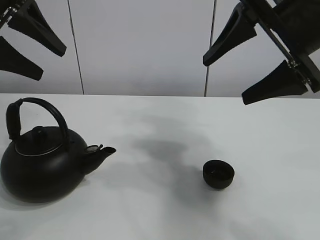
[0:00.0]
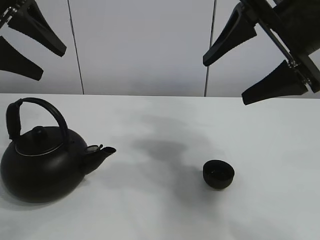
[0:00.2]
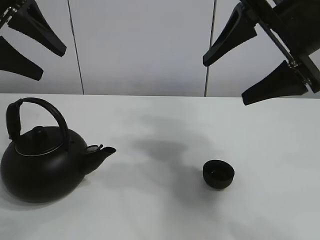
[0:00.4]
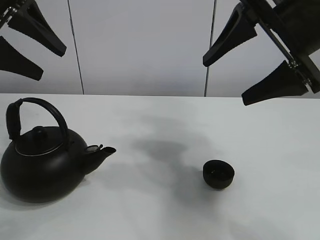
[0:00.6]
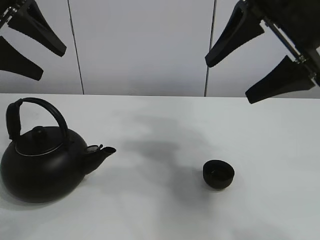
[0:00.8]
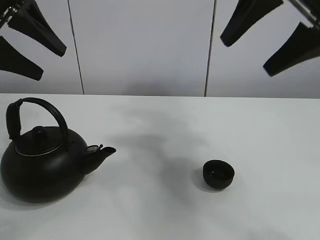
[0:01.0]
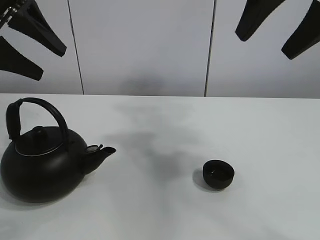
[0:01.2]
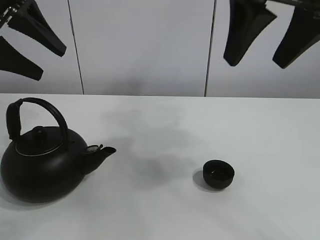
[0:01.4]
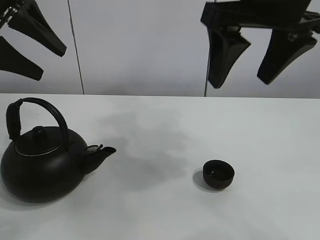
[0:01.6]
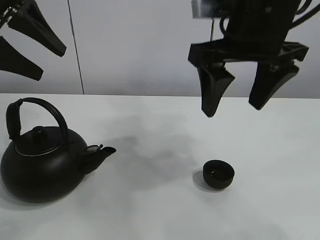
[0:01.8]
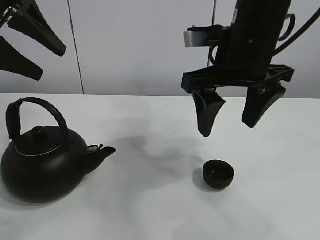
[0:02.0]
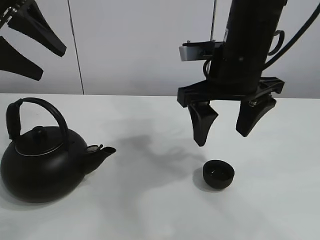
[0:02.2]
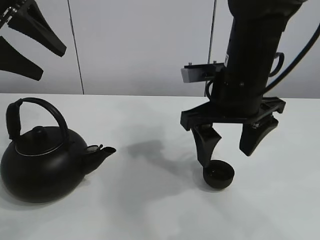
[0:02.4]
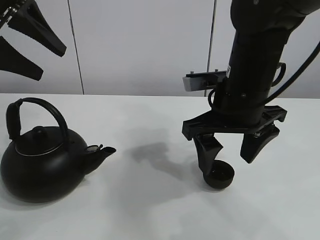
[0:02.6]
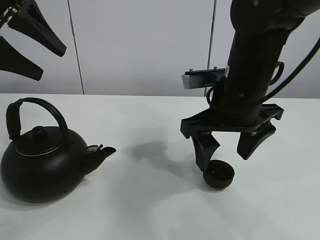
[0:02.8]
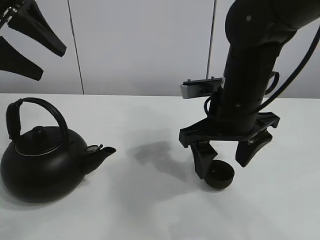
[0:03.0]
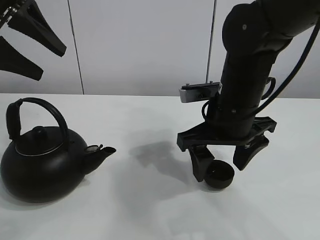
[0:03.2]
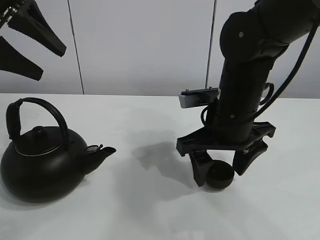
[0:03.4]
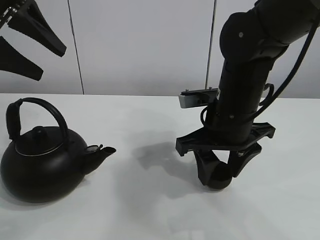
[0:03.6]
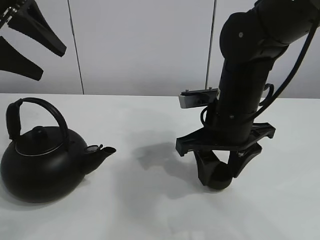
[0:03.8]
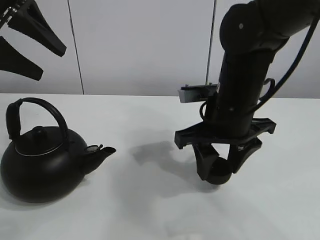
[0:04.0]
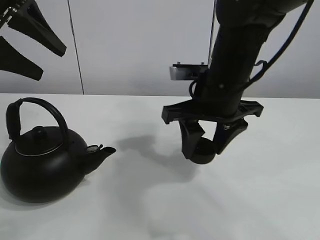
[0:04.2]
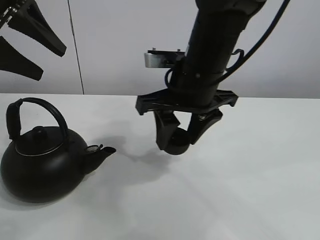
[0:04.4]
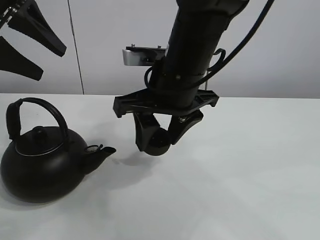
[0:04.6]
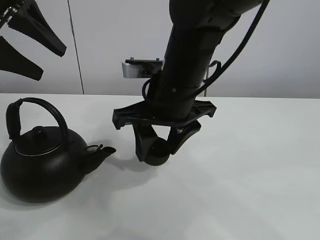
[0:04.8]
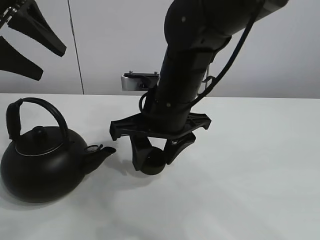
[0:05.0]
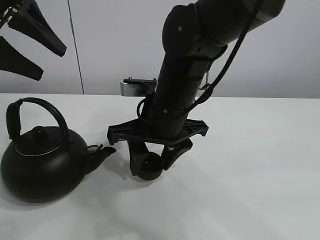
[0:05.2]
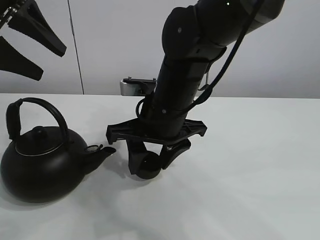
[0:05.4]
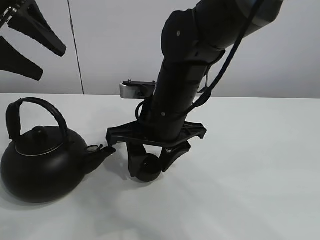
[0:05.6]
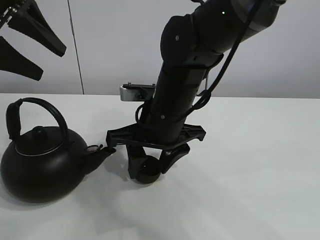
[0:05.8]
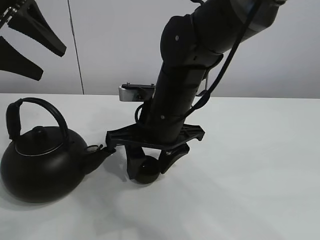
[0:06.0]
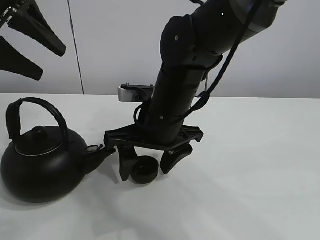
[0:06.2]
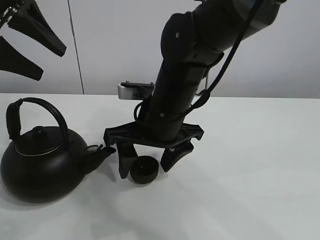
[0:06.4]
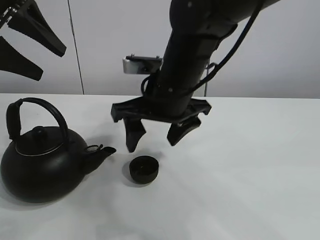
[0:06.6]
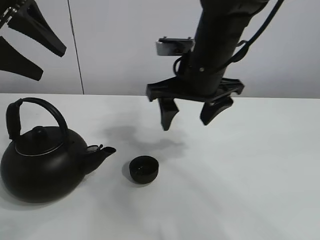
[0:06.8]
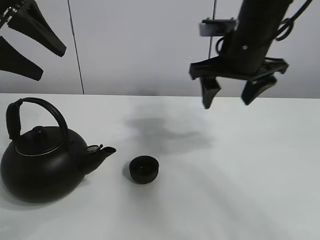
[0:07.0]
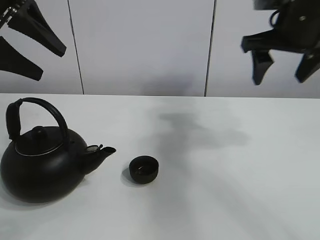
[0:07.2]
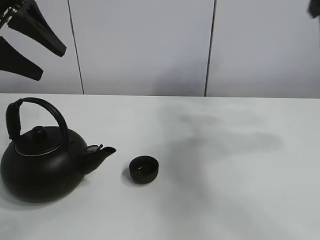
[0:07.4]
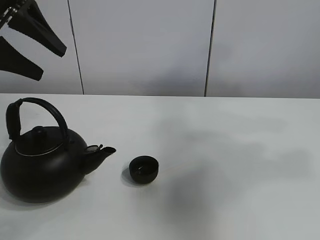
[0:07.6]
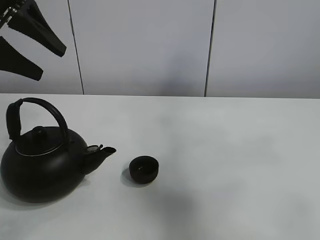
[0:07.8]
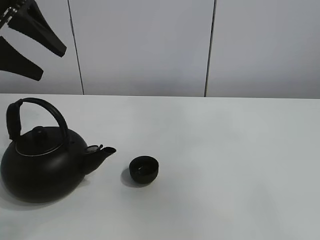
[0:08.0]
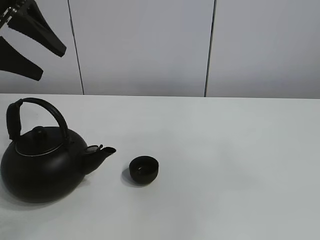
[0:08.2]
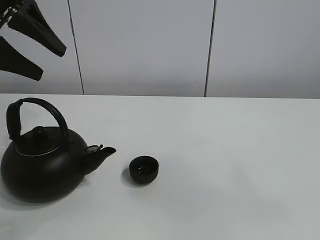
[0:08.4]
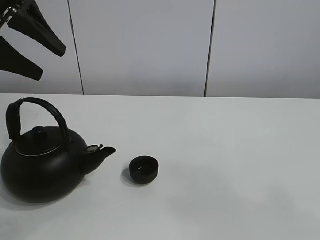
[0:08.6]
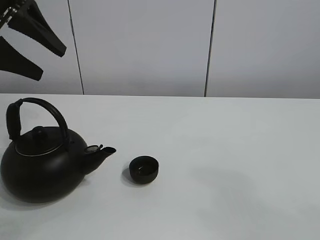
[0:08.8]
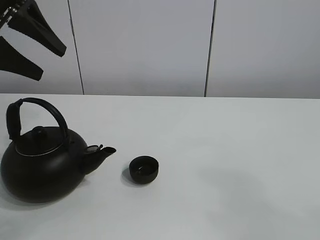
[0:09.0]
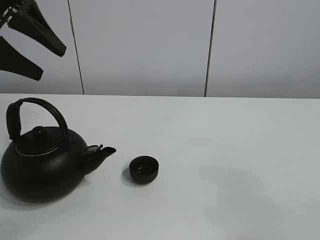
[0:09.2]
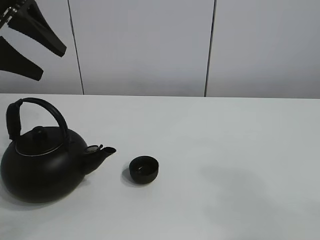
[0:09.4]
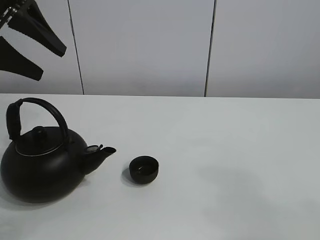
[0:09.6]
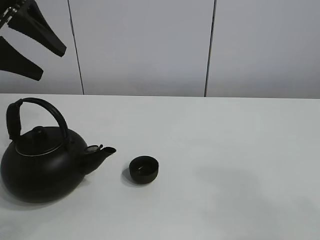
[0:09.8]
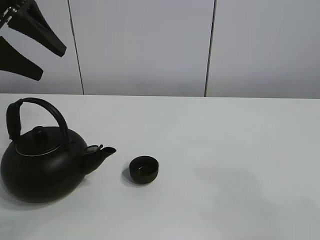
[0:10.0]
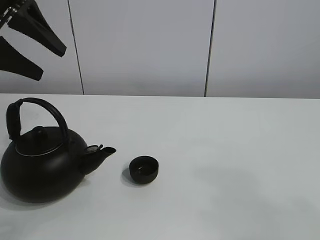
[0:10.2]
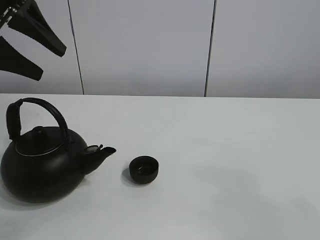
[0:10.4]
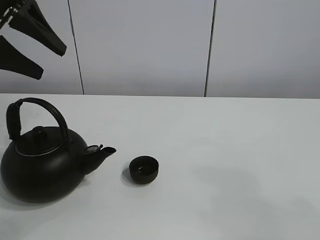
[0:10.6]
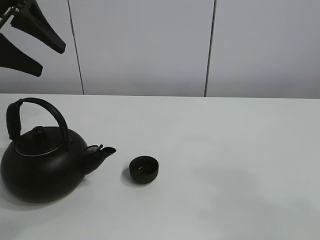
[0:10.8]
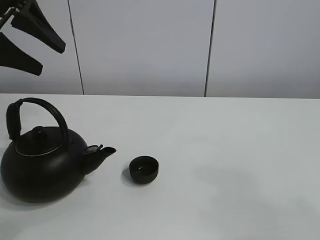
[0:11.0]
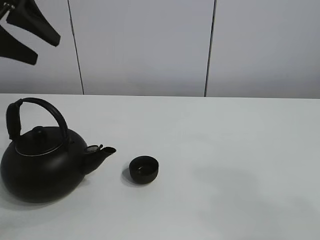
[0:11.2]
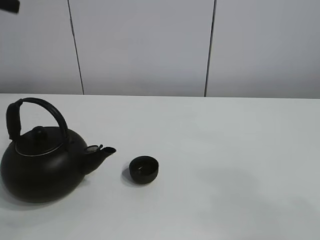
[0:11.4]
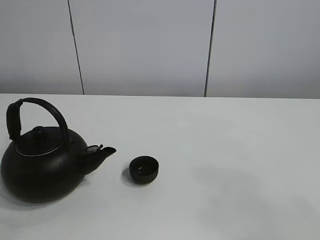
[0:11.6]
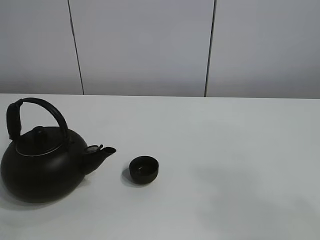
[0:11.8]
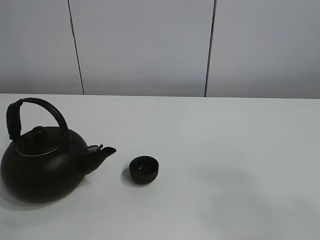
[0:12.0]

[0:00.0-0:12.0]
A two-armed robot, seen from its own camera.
Task of the whole recording: pour tea into the teacup.
Step, 0:00.0 to 0:03.8: Pick up the teacup with the right gripper.
Step, 0:04.0 to 0:06.0: Place the teacup in the center of view with the right gripper.
0:01.6 to 0:03.0: The right gripper is displaced downward by some 15 cm.
0:03.0 to 0:04.4: The right gripper shifts by roughly 5 cm, and closes its fingers.
0:04.4 to 0:06.0: The right gripper moves downward, approximately 5 cm.
0:06.0 to 0:07.6: The right gripper heads to the right and upward, covering approximately 40 cm, and opens up.
0:07.6 to 0:09.0: The right gripper goes approximately 30 cm backward and downward.
0:10.4 to 0:12.0: The left gripper heads upward and backward, covering some 20 cm.

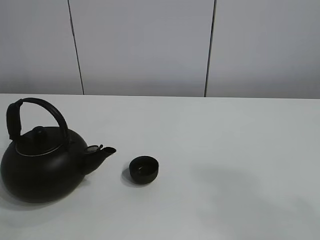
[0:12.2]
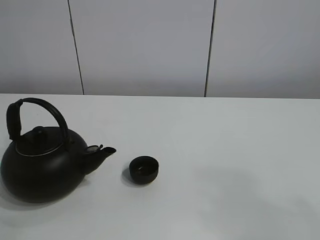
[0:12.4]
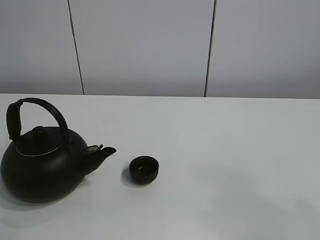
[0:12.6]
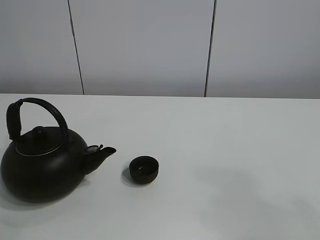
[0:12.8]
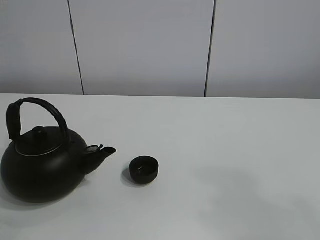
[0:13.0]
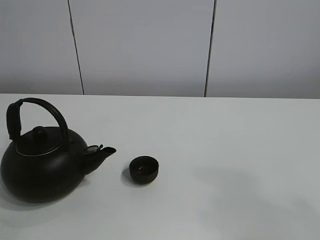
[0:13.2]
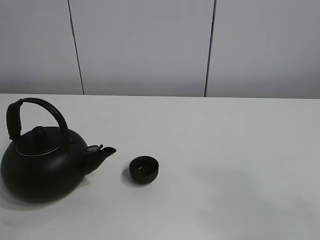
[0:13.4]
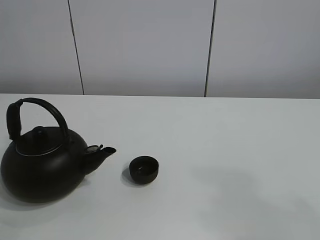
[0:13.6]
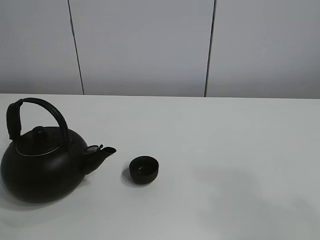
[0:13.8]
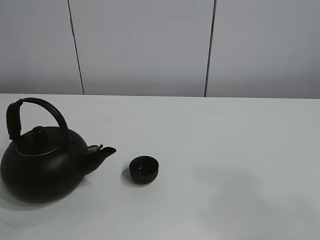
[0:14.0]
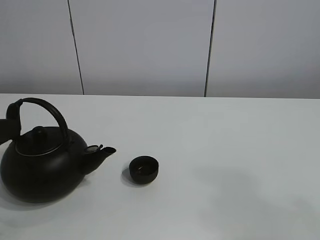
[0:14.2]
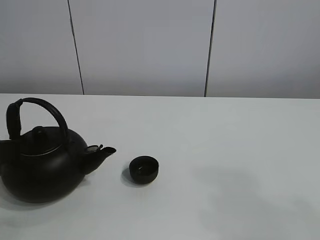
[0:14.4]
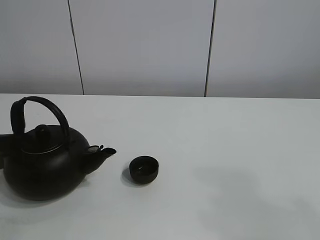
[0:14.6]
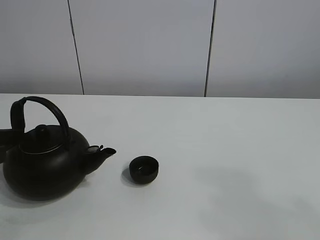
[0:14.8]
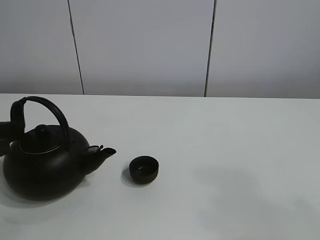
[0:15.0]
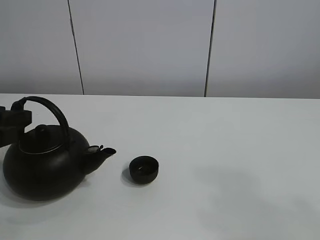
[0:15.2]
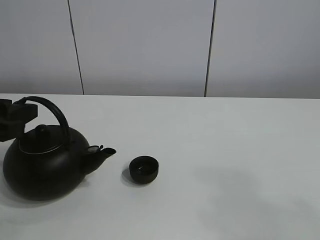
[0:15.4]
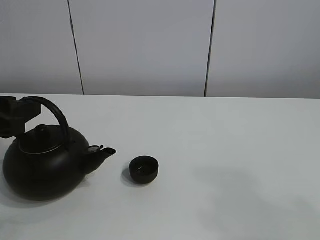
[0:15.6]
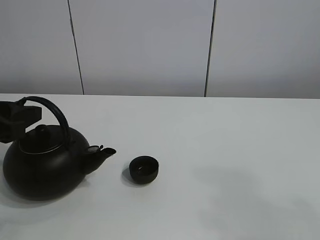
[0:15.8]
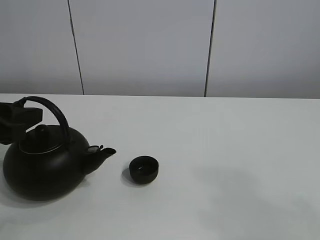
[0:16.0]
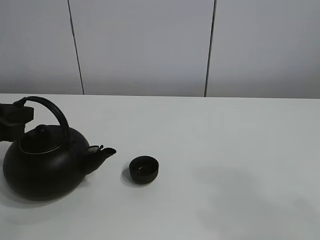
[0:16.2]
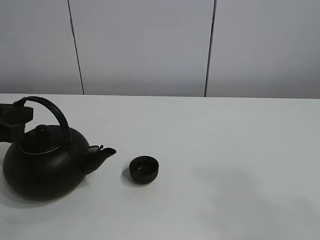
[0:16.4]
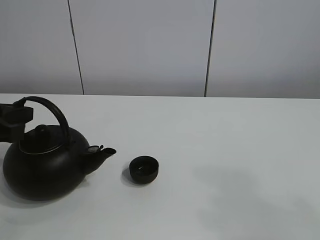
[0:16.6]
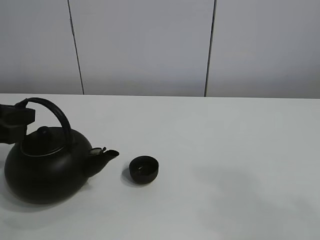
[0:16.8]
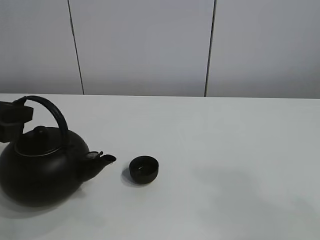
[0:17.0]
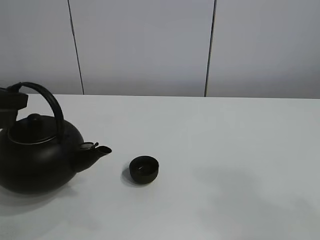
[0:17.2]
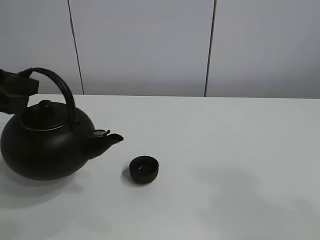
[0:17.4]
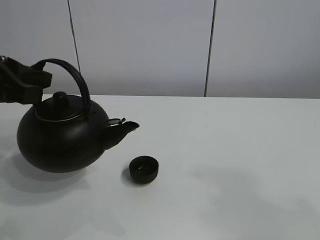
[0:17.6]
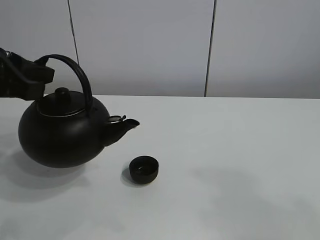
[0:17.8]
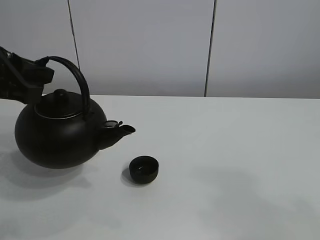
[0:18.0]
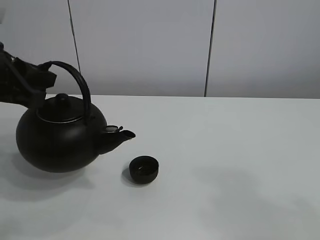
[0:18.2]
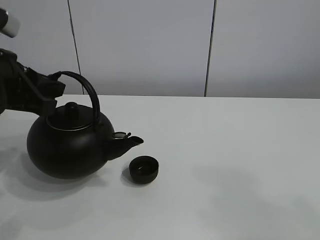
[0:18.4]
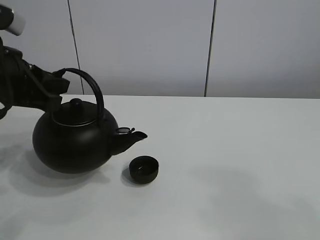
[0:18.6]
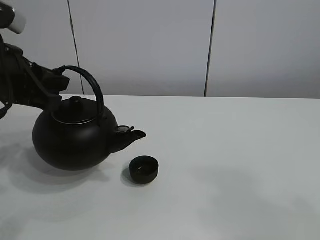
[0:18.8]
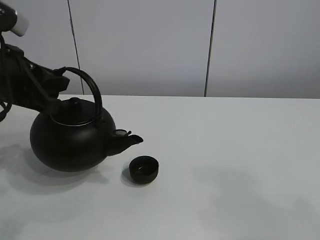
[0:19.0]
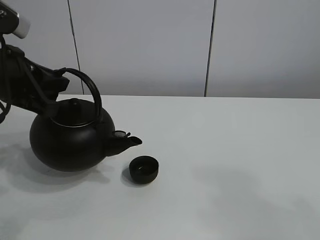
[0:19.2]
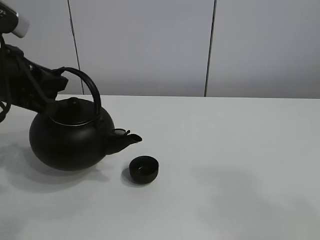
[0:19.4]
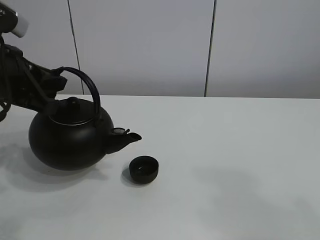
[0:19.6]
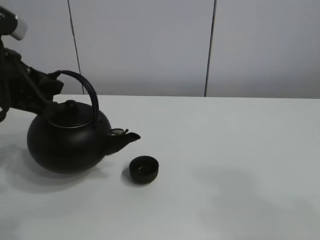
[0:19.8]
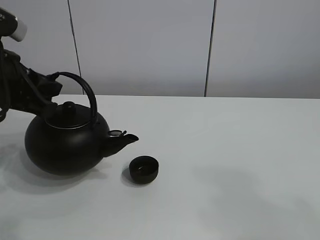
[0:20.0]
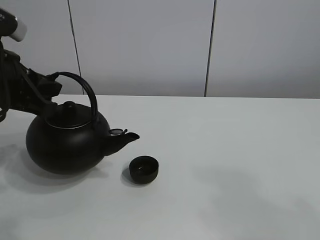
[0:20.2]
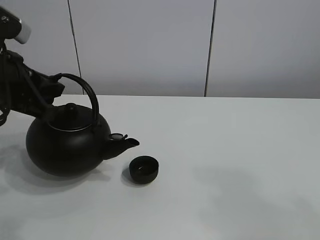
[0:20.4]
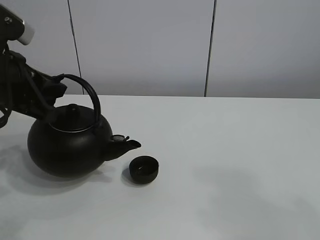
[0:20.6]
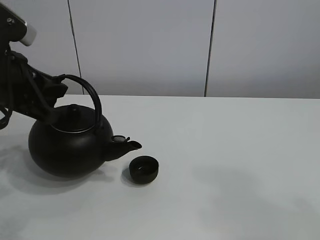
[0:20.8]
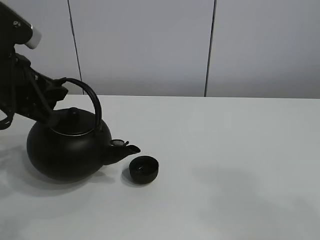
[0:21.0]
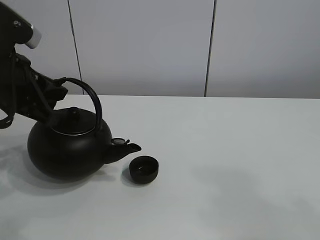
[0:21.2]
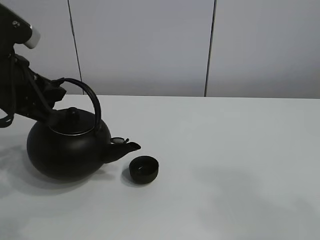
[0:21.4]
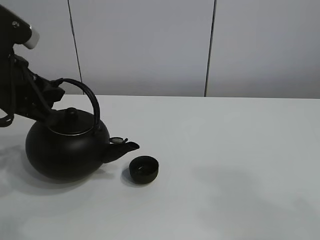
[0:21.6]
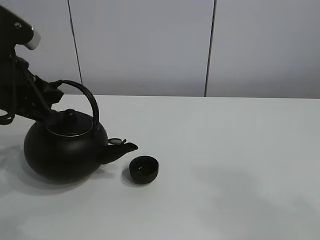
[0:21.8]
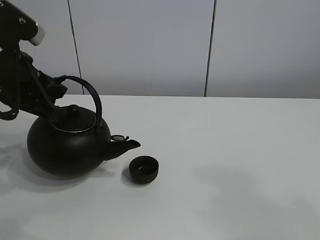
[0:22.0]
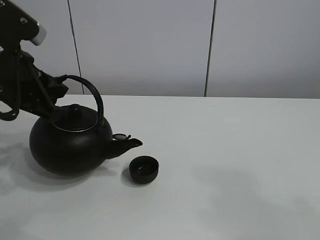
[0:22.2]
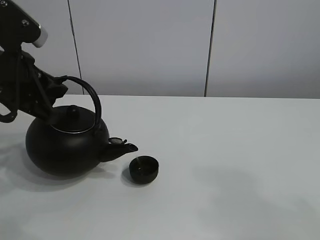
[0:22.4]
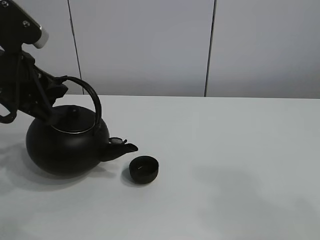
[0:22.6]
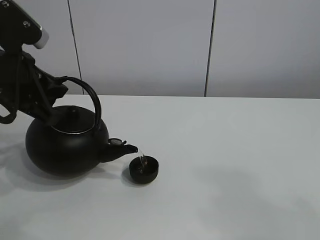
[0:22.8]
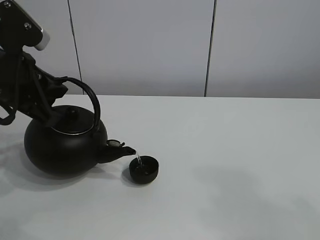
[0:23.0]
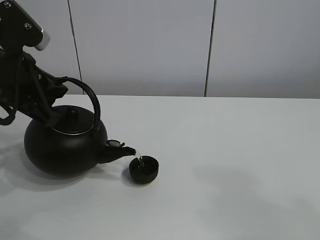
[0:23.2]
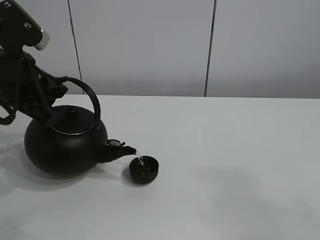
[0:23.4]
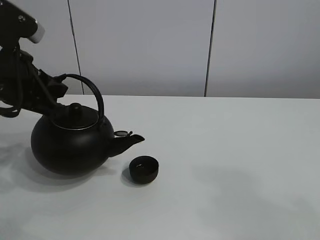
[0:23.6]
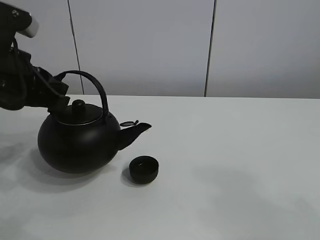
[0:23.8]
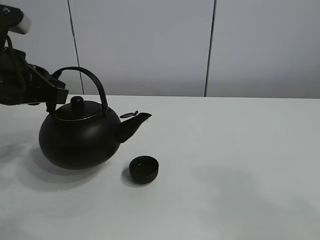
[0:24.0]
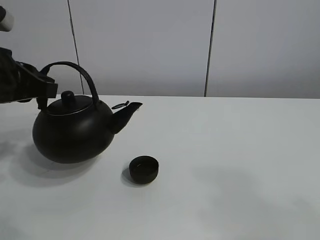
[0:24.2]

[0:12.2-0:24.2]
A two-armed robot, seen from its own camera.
Task of the whole recording: pour tea into the teacup.
Step, 0:12.2 to 0:16.8: Pick up the teapot with the left gripper.
Step, 0:17.0 to 0:23.6: Pour tea into the teacup with the left gripper.
0:13.8 to 0:15.2: The left gripper is displaced forward and downward by roughly 10 cm.
0:16.6 to 0:18.2: The left gripper is displaced upward by roughly 5 cm.
0:18.2 to 0:22.6: The grippers make only small movements.
